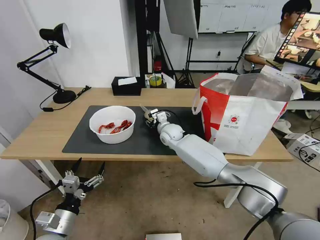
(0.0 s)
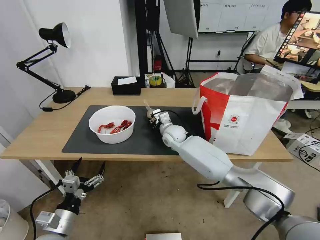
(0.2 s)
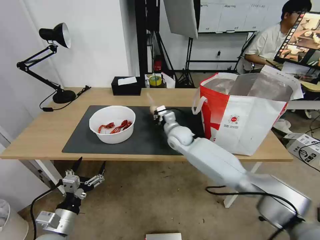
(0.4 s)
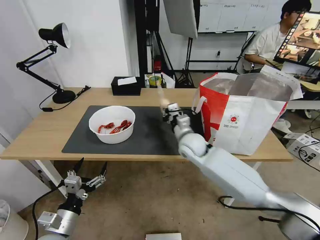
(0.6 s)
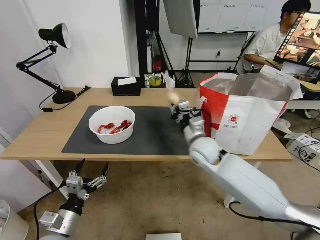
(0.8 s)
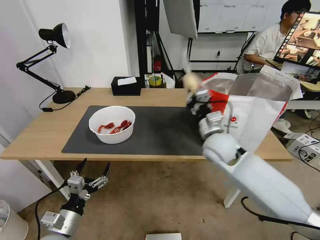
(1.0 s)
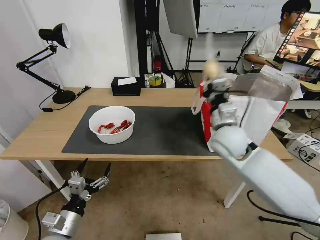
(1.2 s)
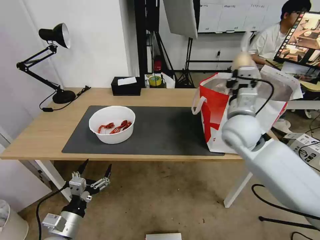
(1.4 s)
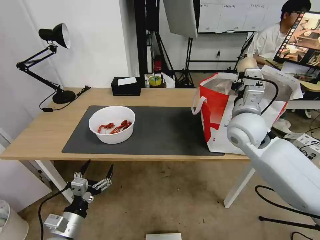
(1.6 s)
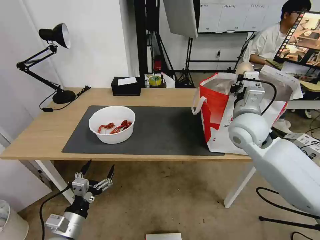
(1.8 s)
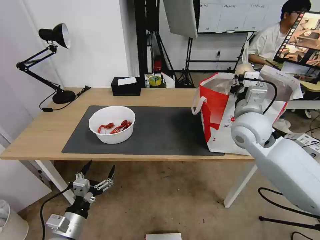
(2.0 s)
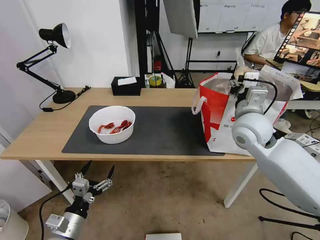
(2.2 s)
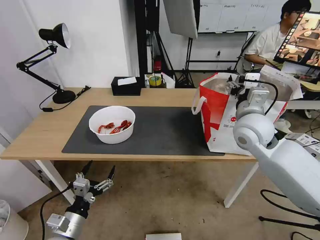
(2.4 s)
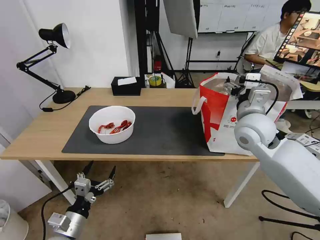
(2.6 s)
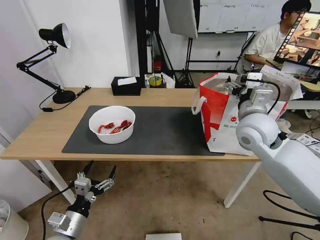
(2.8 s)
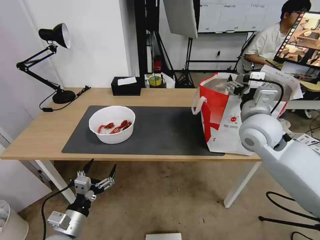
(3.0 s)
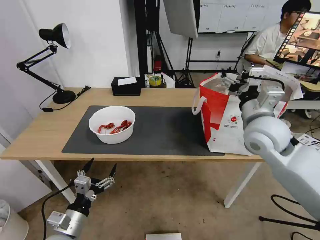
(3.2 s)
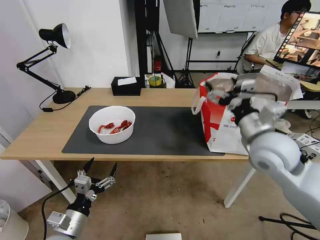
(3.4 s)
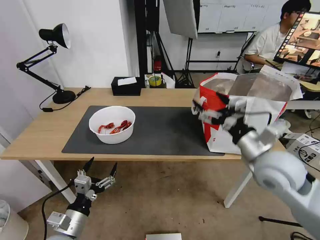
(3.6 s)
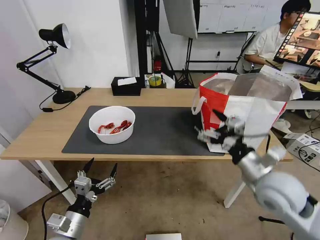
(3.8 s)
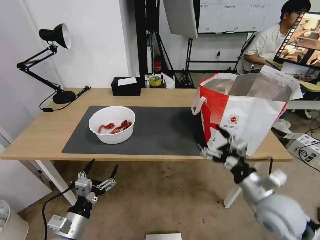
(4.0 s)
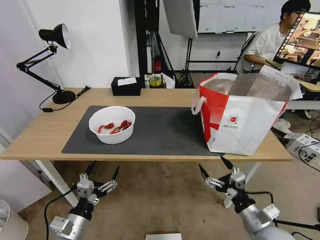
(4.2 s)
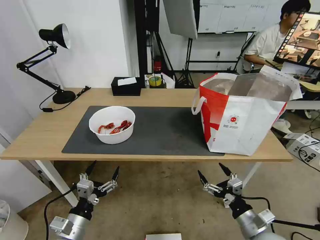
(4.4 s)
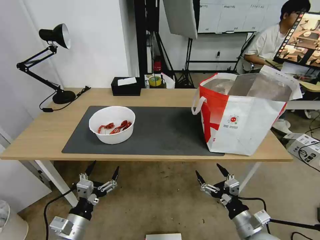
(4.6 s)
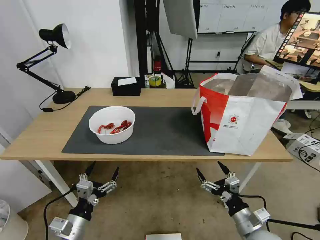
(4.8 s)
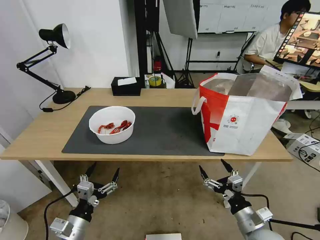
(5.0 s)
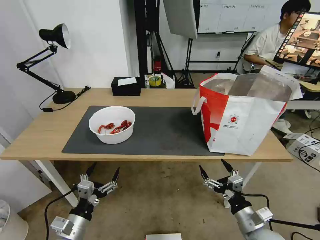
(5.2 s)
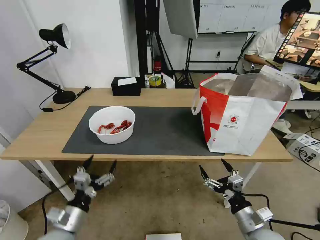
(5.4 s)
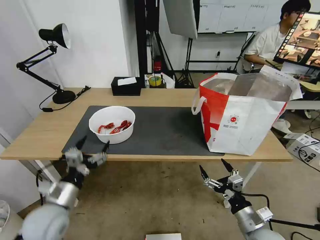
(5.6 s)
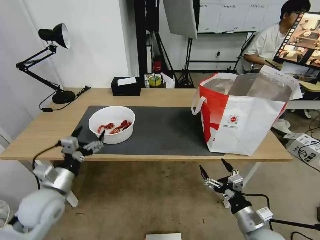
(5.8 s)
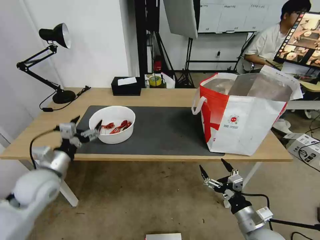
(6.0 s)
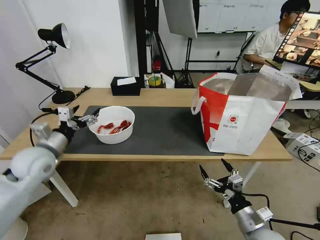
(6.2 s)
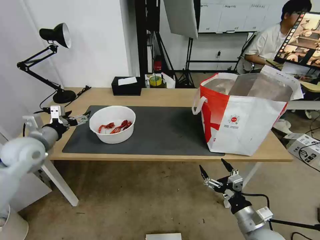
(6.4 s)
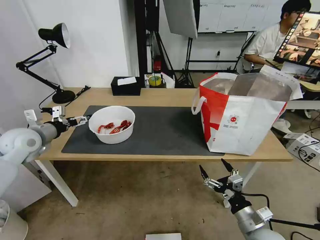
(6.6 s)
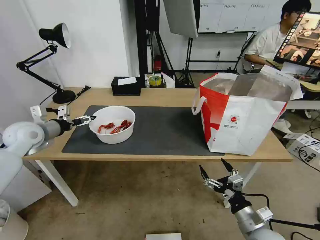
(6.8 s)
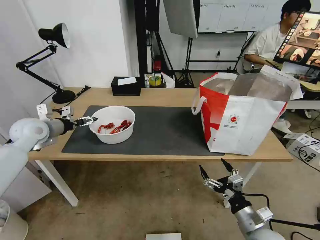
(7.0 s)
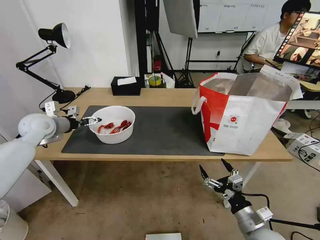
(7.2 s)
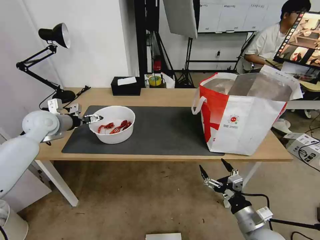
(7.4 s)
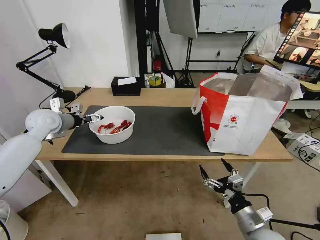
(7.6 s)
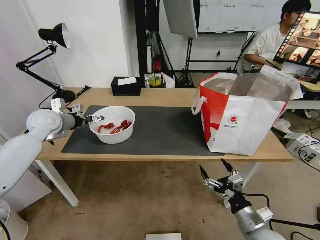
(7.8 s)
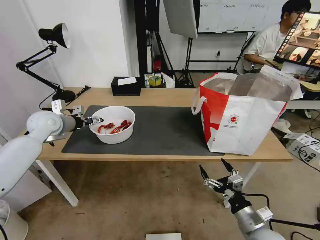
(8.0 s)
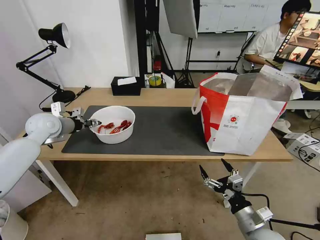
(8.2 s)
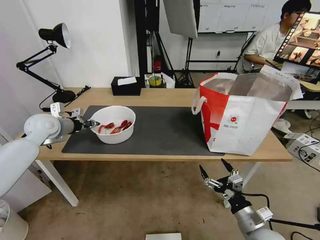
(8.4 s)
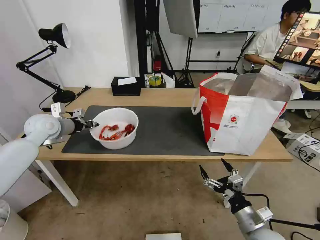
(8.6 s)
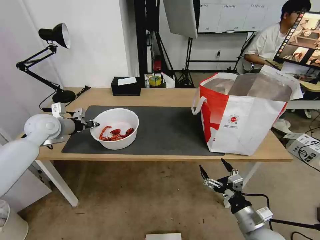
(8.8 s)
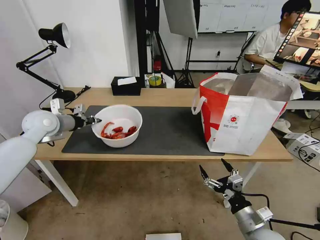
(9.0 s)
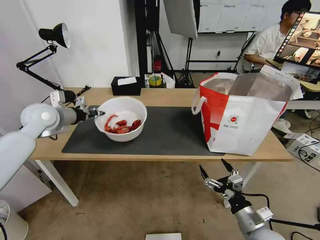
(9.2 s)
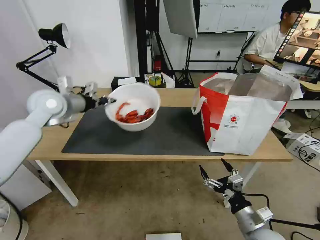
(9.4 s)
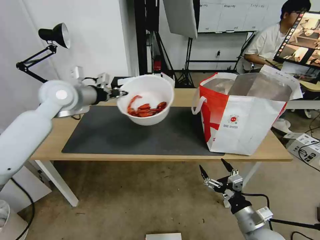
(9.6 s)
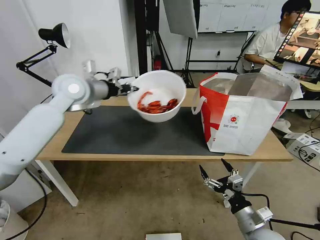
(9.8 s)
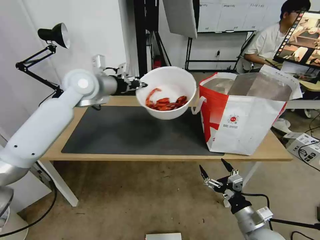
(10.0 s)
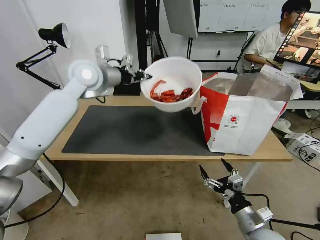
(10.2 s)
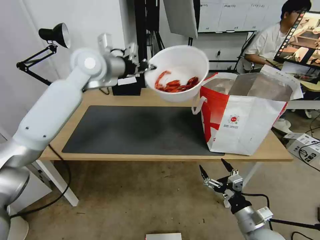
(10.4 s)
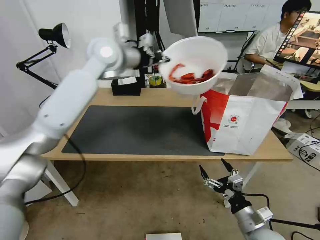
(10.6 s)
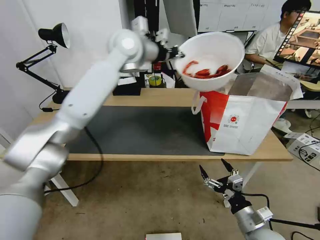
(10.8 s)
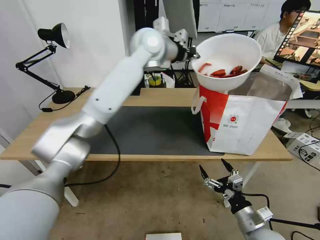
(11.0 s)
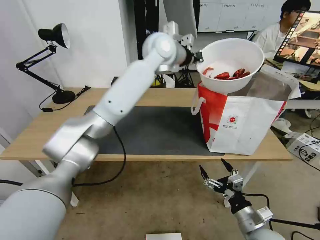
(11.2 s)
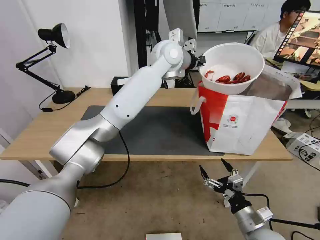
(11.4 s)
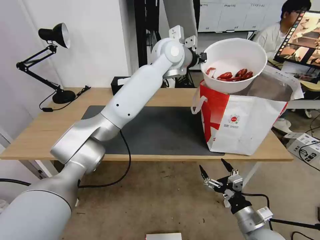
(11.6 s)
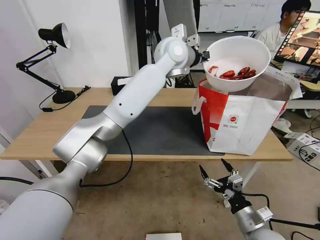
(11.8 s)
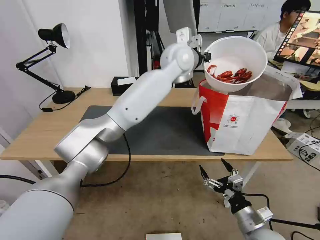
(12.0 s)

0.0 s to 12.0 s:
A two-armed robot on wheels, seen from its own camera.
Task of the whole recording: Pick up the trash from the table and place it into the takeout bag.
0.0 to 1.6 s: The right gripper moves to the right, upward and backward, some 30 cm, and closes up.
1.6 to 3.0 s: The right gripper opens up.
3.0 to 4.4 s: The right gripper shifts approximately 35 cm downward and backward.
4.4 to 6.0 s: The left gripper moves forward, upward and to the left, approximately 20 cm.
6.0 to 7.6 s: The left gripper moves forward, about 20 cm.
7.6 to 9.0 s: The left gripper closes its fingers.
9.0 to 10.4 s: The left gripper shifts some 25 cm to the right and upward.
10.4 to 12.0 s: The left gripper shifts approximately 25 cm to the right.

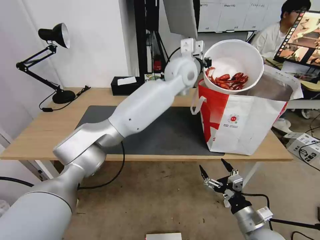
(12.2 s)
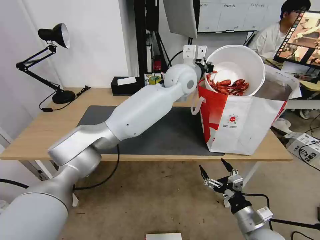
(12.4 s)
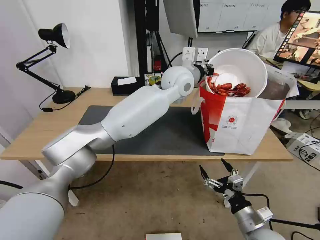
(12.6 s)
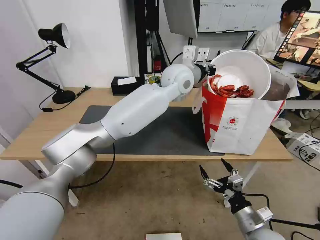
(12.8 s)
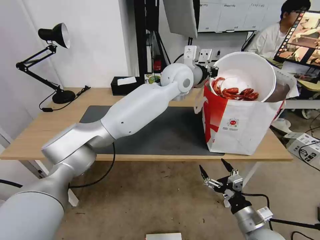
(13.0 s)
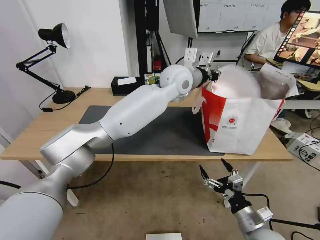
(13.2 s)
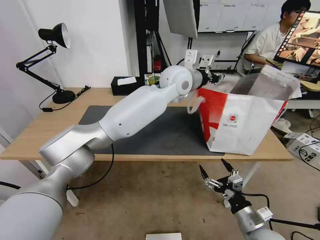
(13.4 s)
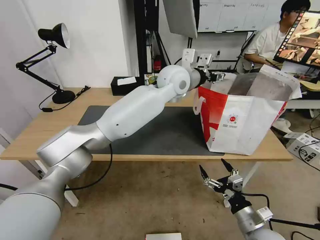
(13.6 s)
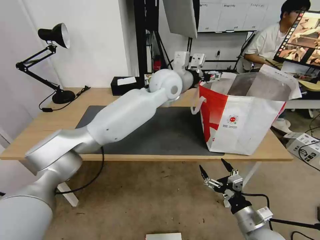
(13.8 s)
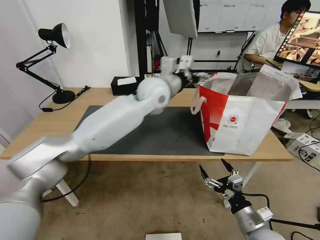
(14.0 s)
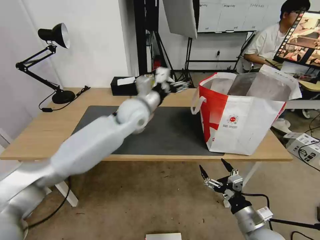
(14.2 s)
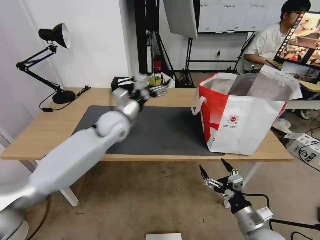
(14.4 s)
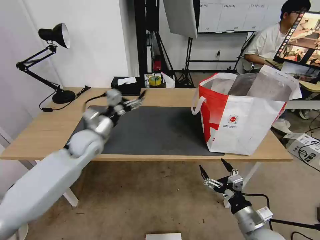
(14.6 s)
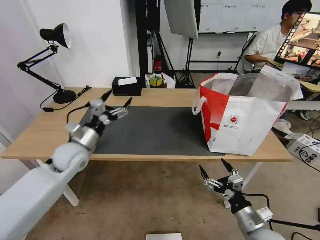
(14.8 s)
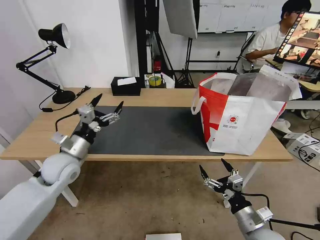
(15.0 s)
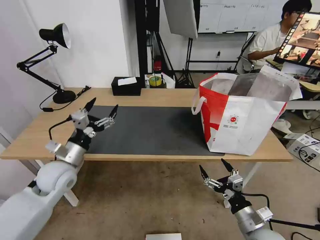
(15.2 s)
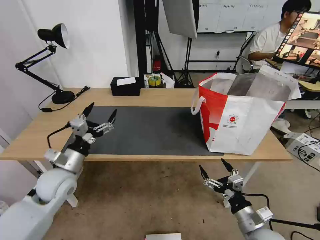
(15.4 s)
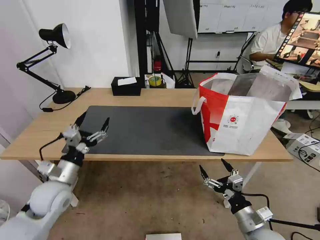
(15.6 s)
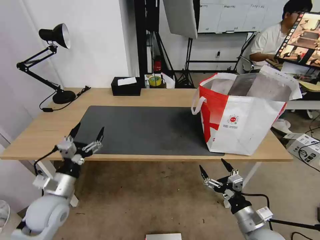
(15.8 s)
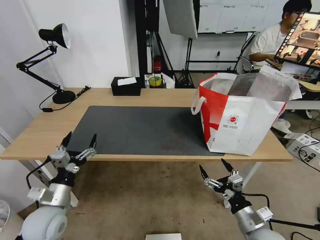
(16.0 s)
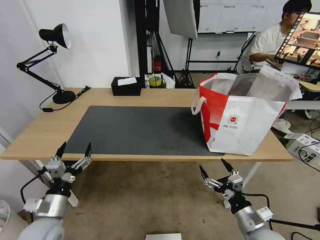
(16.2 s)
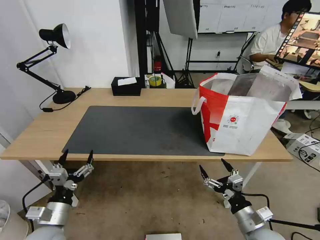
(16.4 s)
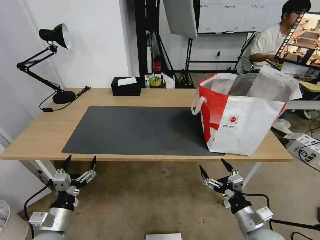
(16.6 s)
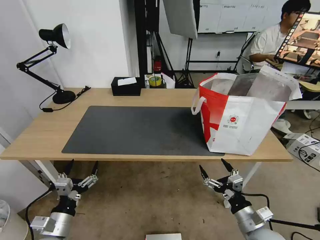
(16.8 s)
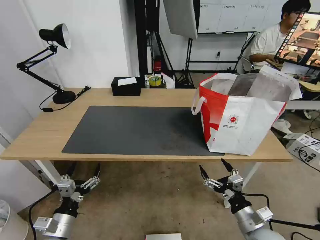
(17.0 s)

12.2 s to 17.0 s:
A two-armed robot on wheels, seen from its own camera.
Task of the whole recording: Pick up the trash from the table and place it into the takeout bag.
12.2 to 13.8 s: The left gripper shifts by about 5 cm, and opens its fingers.
13.8 to 15.4 s: The left gripper moves to the left, downward and backward, approximately 40 cm.
15.4 to 17.0 s: The left gripper travels backward and downward by about 20 cm.
